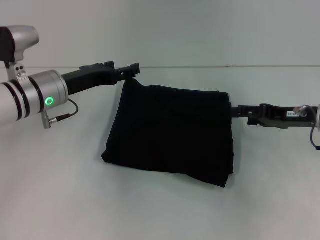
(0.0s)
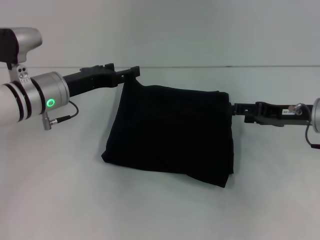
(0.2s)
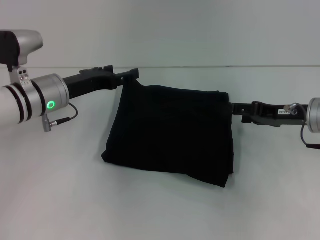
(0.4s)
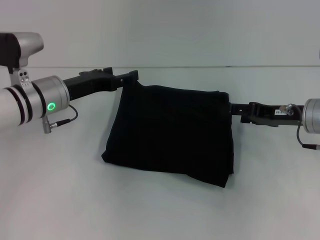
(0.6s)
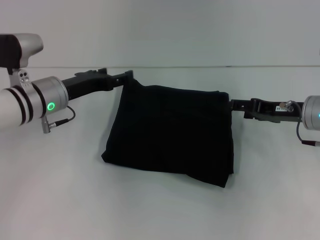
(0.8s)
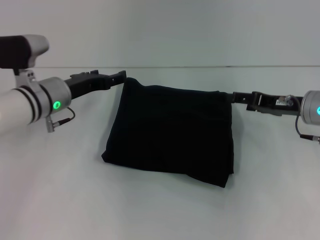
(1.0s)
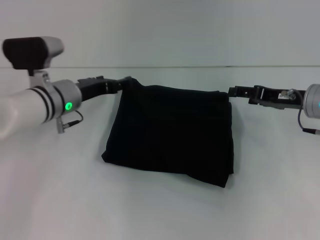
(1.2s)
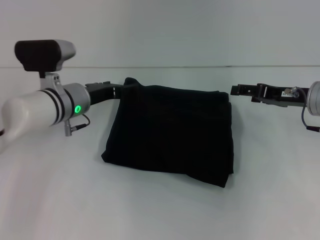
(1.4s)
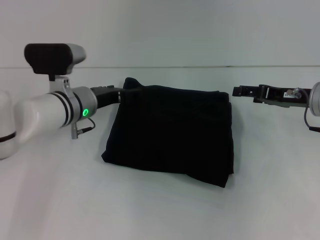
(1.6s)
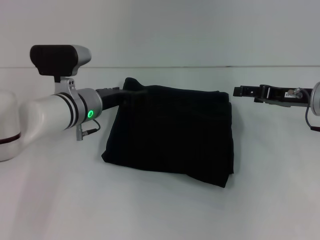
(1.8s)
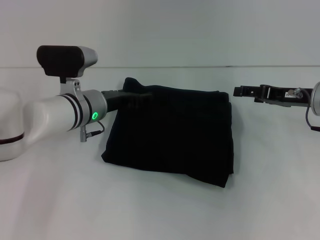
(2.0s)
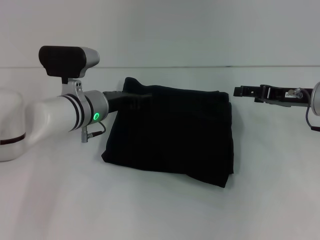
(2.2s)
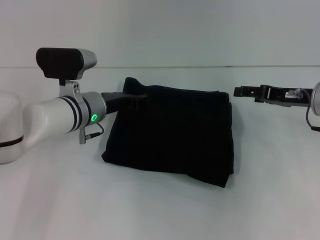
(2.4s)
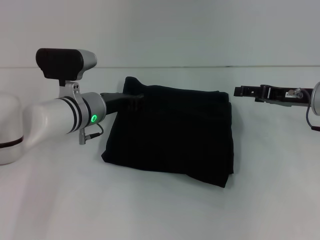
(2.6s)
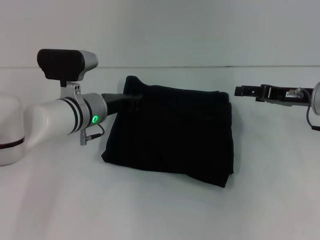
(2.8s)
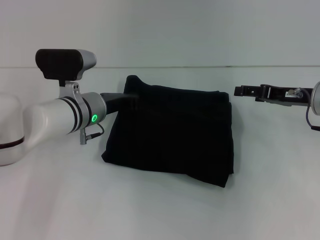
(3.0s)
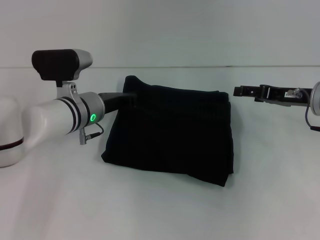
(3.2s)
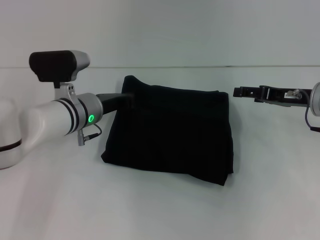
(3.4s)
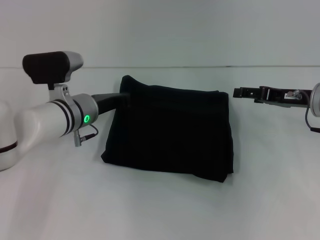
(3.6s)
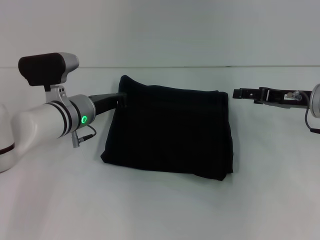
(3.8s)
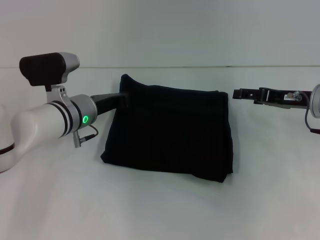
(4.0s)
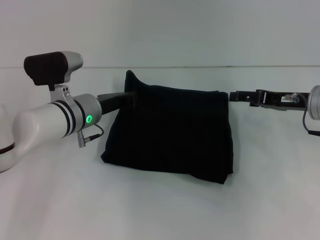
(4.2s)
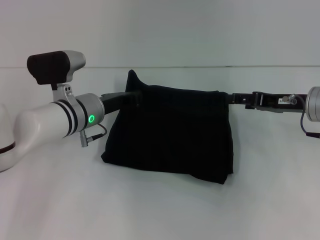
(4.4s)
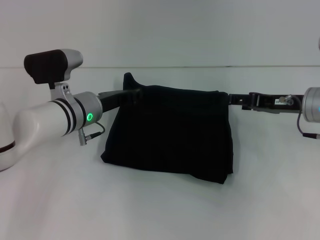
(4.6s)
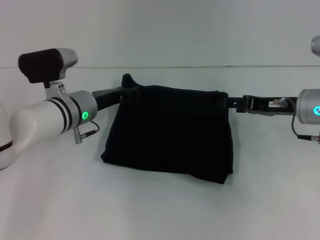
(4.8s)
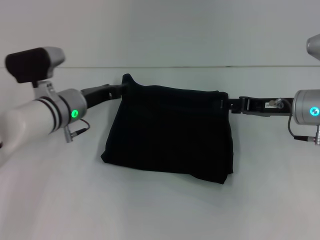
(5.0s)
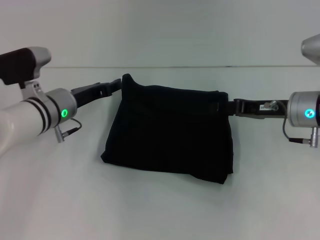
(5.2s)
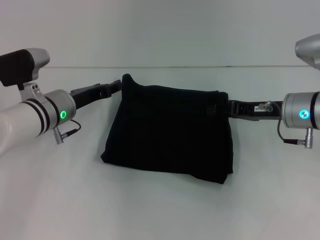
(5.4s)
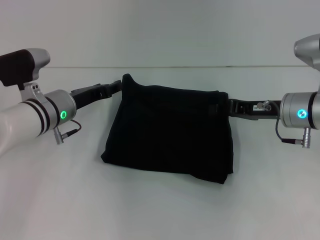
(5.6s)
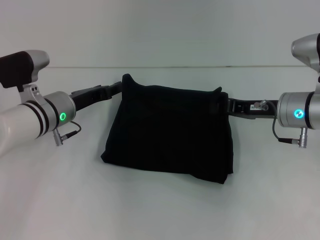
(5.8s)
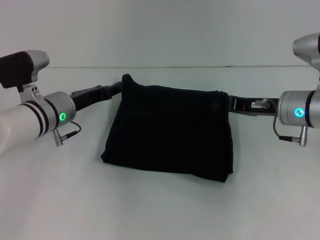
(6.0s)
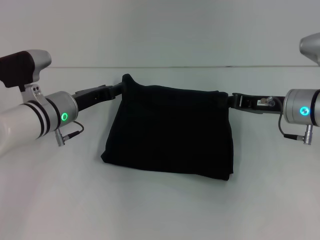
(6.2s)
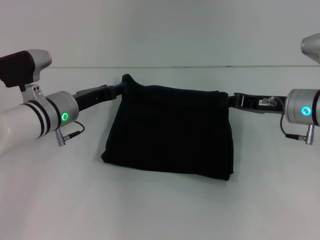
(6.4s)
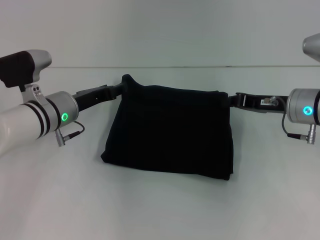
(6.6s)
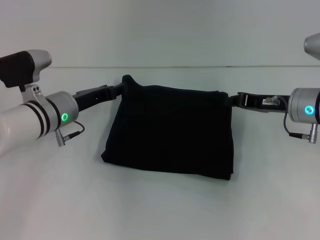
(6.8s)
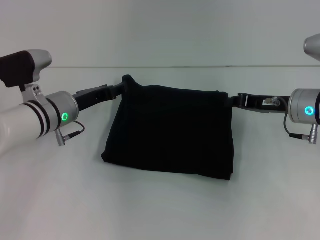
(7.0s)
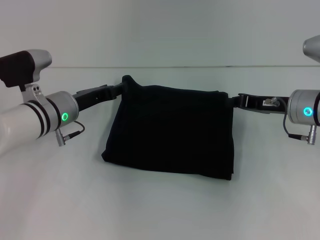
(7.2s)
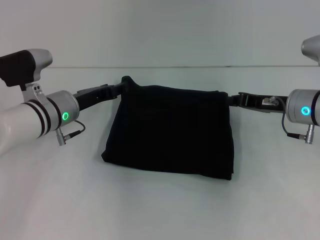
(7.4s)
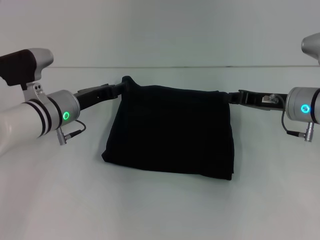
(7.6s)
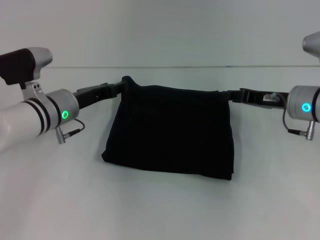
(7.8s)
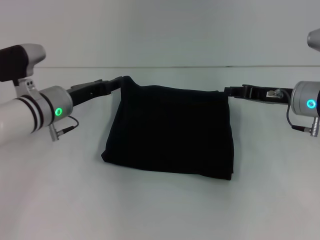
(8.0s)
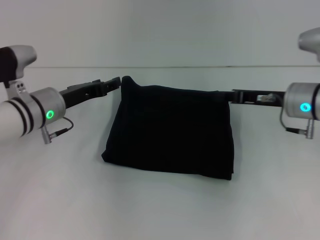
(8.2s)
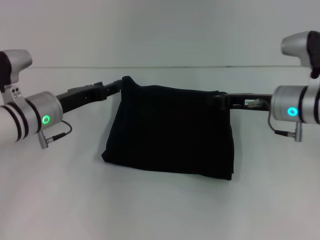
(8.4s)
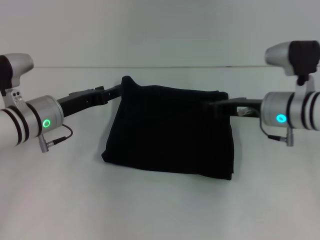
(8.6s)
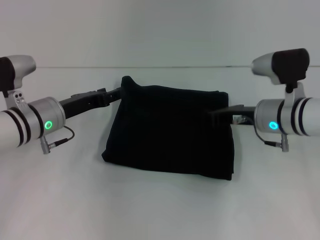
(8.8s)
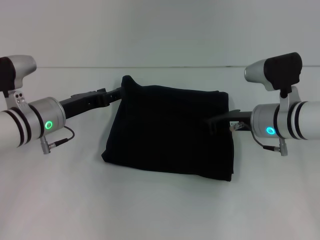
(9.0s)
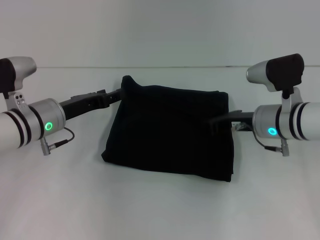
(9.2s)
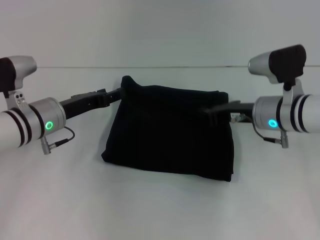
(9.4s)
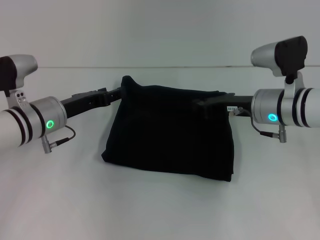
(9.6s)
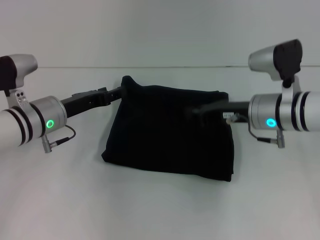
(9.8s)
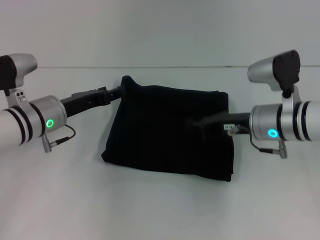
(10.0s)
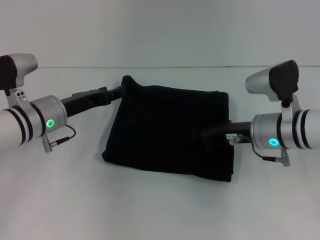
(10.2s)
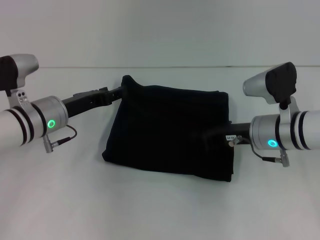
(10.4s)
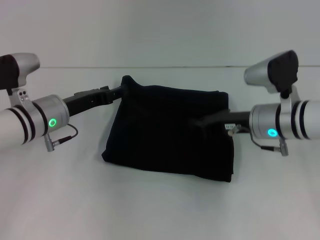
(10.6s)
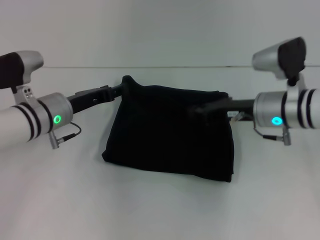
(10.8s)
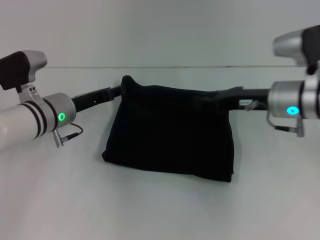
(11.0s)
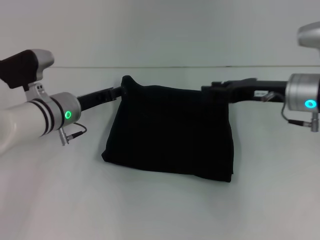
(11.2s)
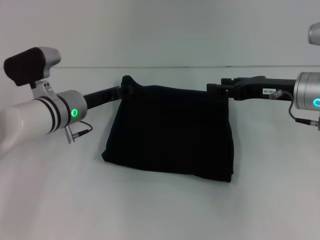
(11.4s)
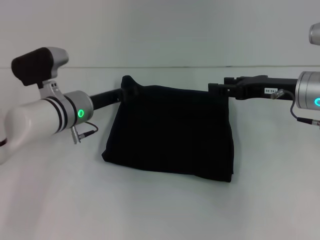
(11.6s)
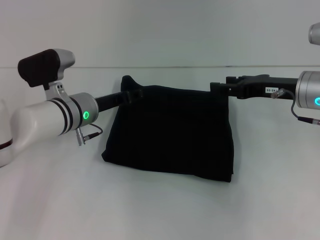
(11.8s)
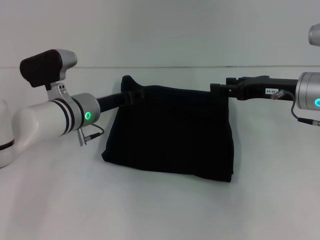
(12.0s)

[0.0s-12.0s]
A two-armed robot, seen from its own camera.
0.0s to 1.6s: The left gripper ends up about 5 cm from where it was.
1.6s to 3.0s: The left gripper closes its fingers.
3.0s to 4.4s: There are only small adjustments of the grippers.
4.4s to 6.0s: The right gripper closes. Meanwhile the left gripper opens.
6.0s to 7.6s: There are only small adjustments of the grippers.
7.6s to 9.0s: The right gripper heads to the left, covering about 5 cm.
9.0s to 10.4s: The grippers move only a little.
10.4s to 12.0s: The left gripper heads to the right, covering about 5 cm; the right gripper heads to the right and upward, covering some 10 cm, and opens its fingers.

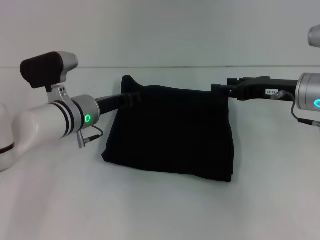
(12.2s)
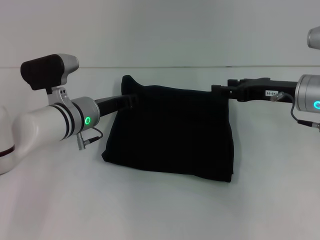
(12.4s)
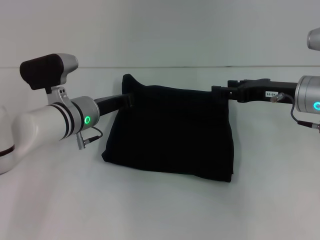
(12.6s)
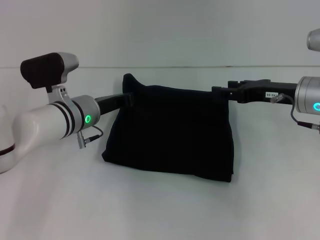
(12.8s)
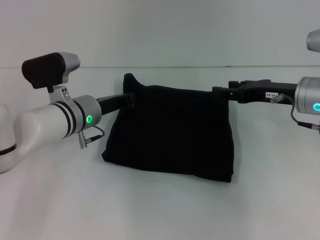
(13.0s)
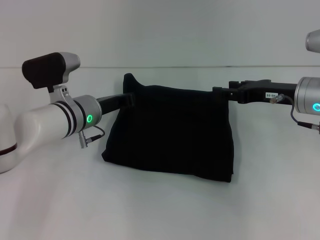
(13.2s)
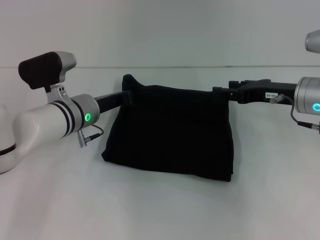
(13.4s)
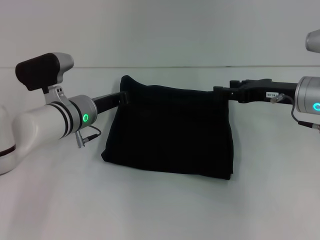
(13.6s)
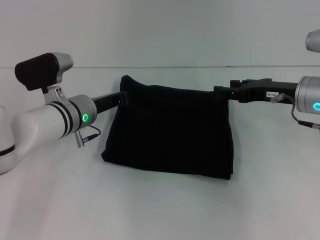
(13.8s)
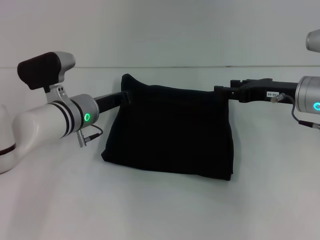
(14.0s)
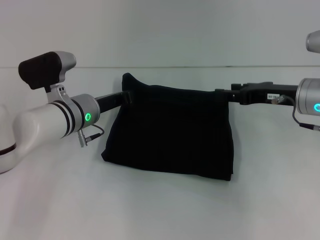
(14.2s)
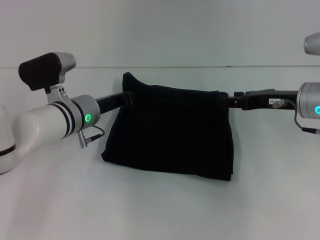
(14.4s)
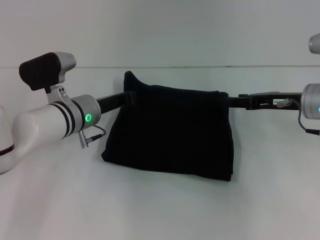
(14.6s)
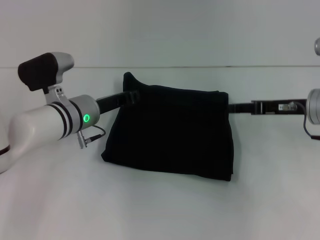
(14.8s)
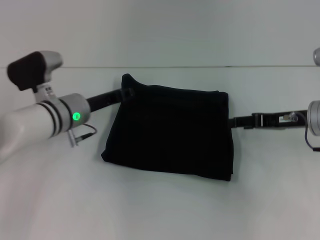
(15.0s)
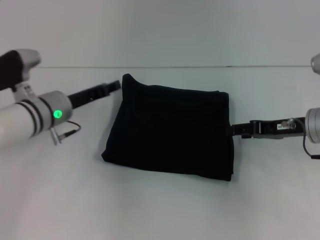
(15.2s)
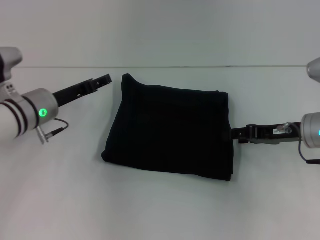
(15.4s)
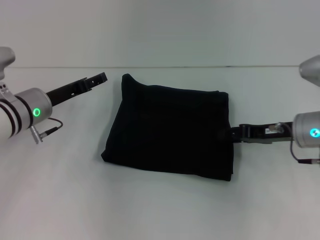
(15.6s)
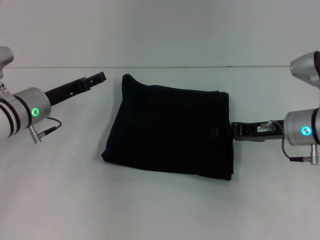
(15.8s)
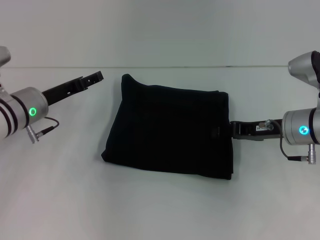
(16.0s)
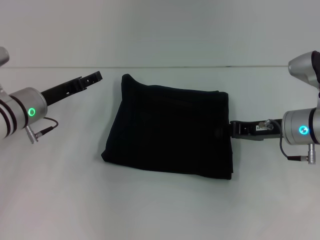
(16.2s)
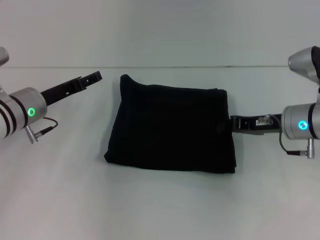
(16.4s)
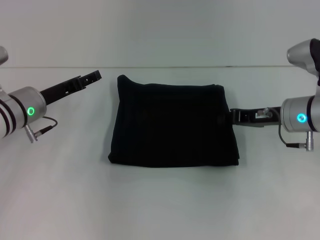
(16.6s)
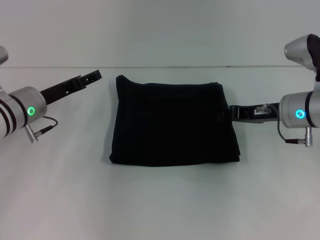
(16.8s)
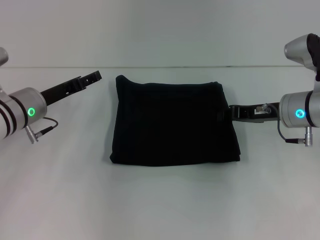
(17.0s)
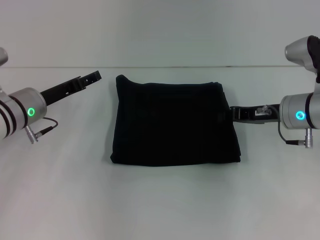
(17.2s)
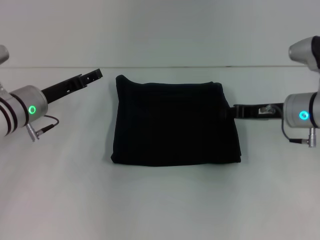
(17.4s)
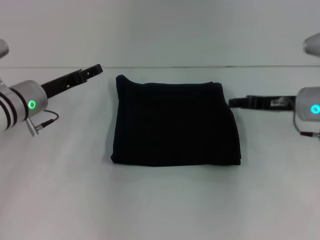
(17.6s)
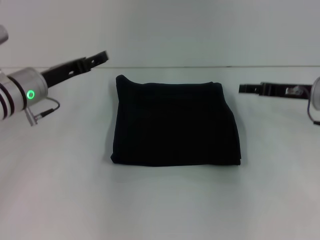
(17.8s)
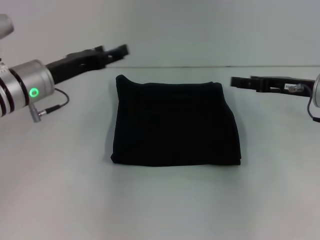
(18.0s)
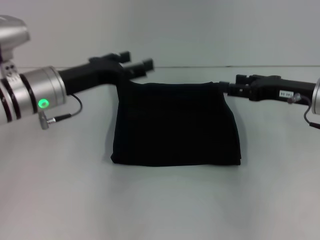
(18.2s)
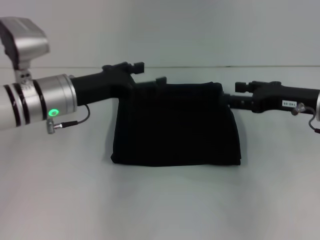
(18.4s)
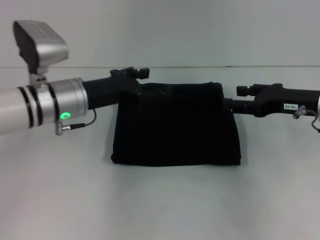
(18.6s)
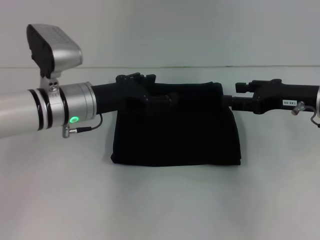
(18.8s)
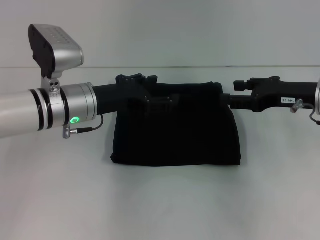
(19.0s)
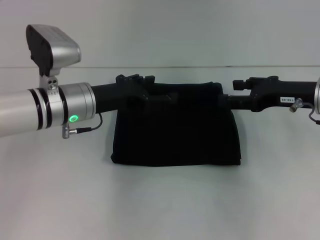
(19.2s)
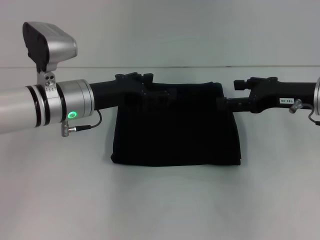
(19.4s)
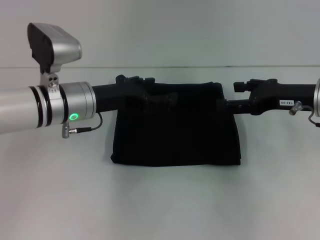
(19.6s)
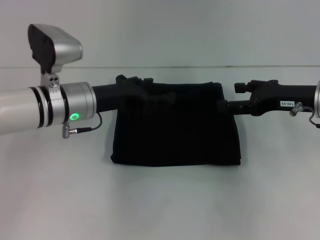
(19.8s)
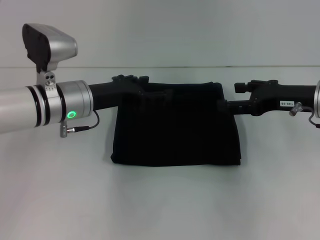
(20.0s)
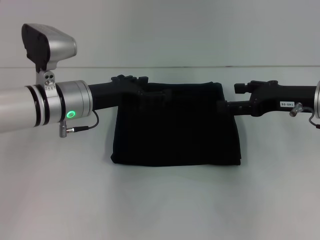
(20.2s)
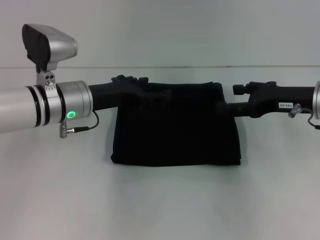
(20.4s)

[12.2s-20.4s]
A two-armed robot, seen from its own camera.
12.2s to 13.8s: The left gripper closes.
13.8s to 15.4s: The left gripper moves to the left, approximately 5 cm, and opens up.
15.4s to 17.2s: The left gripper opens up. The right gripper closes.
17.2s to 18.8s: The right gripper shifts by approximately 5 cm, and opens its fingers. The left gripper shifts about 10 cm to the right.
18.8s to 20.4s: The grippers make only small movements.

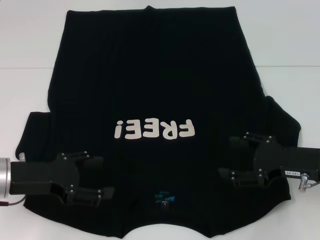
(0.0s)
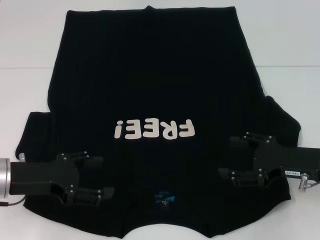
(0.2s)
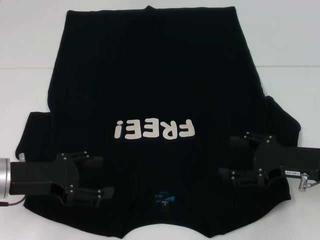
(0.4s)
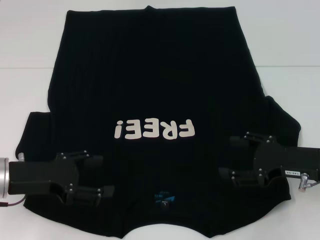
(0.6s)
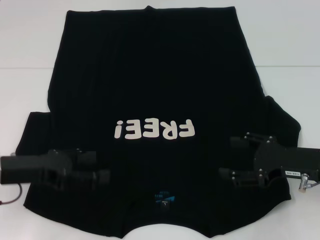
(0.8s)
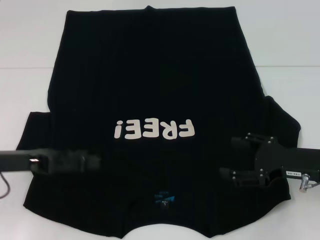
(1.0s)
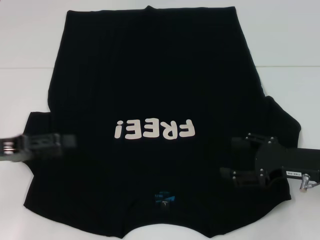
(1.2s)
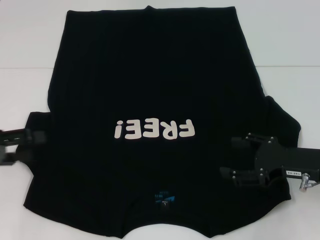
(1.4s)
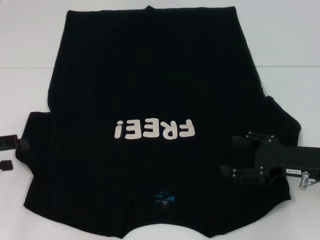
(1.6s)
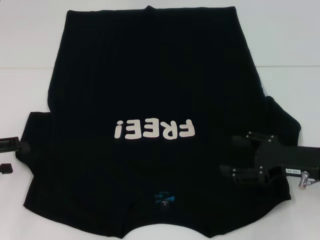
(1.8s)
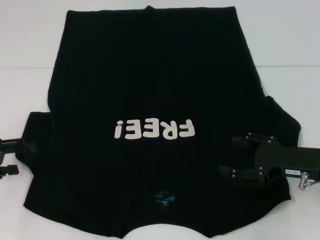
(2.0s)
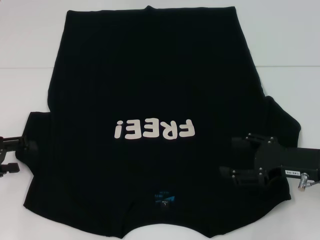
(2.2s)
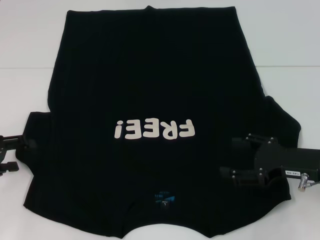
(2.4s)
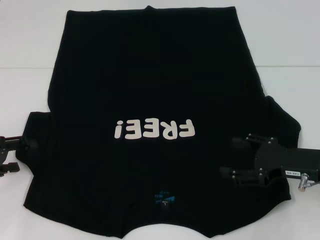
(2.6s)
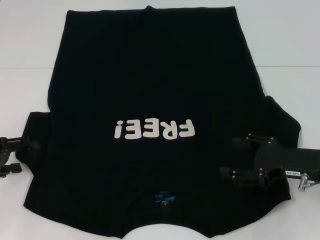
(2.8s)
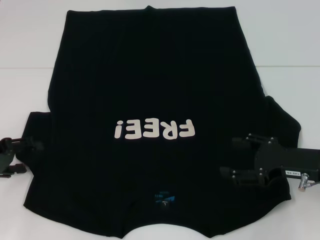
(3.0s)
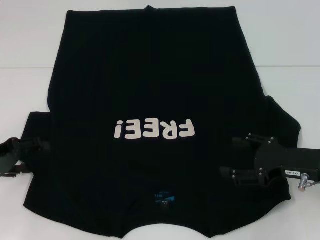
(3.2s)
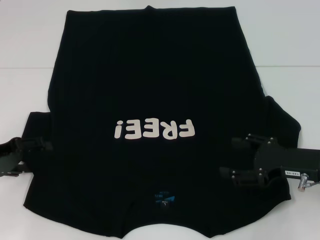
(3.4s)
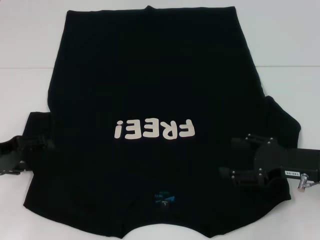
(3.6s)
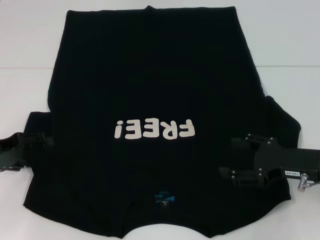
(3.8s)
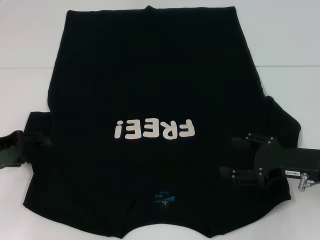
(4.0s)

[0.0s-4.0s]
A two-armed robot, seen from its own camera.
0.0s to 1.4s: The left gripper goes approximately 10 cm to the left.
1.4s to 4.0s: The grippers stay close to where they were, moving slightly.
